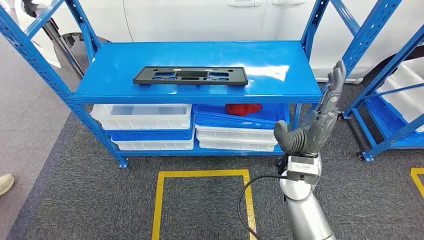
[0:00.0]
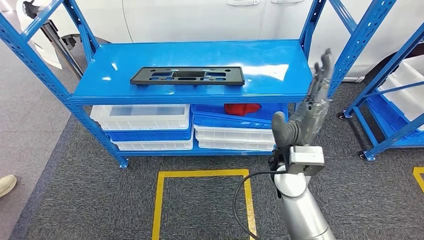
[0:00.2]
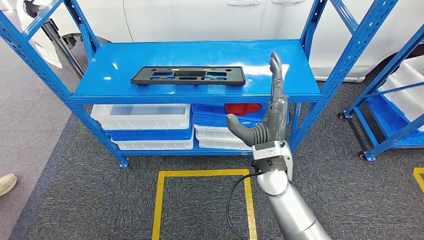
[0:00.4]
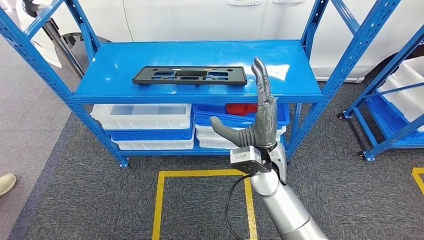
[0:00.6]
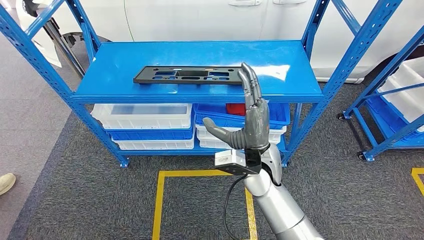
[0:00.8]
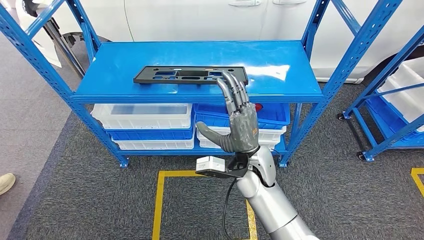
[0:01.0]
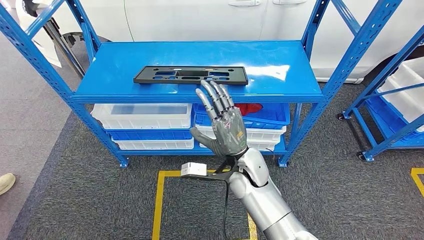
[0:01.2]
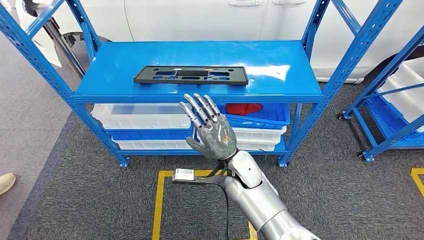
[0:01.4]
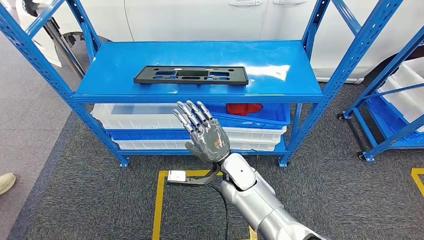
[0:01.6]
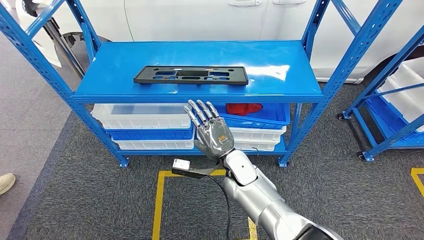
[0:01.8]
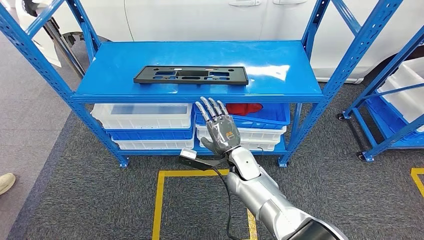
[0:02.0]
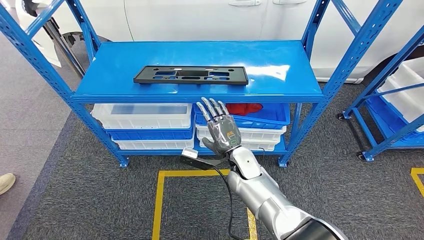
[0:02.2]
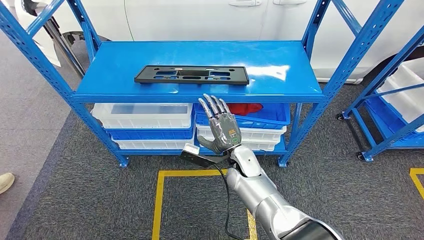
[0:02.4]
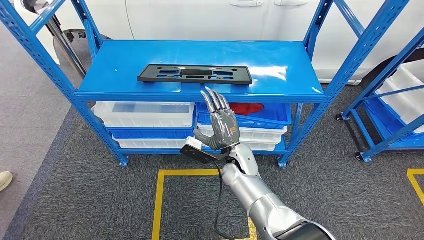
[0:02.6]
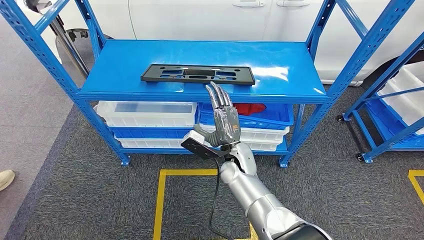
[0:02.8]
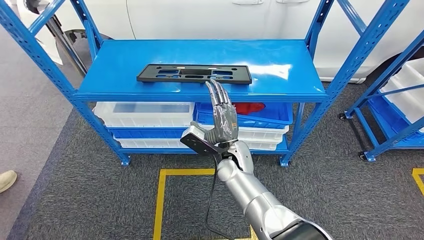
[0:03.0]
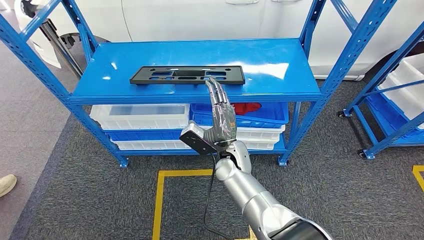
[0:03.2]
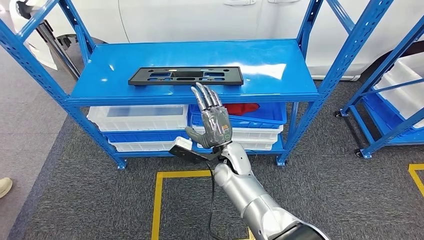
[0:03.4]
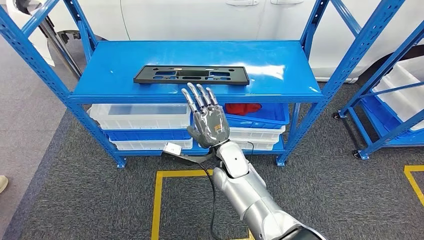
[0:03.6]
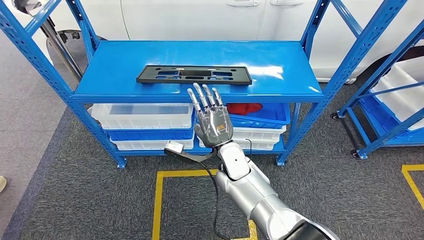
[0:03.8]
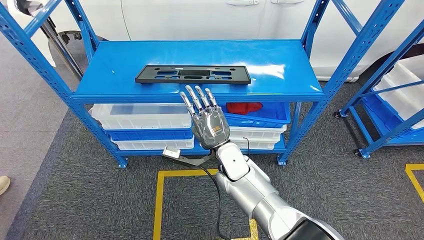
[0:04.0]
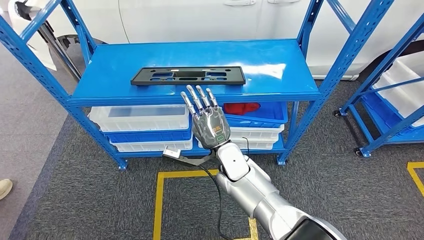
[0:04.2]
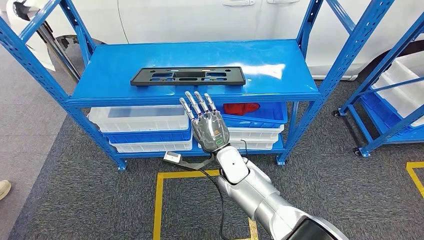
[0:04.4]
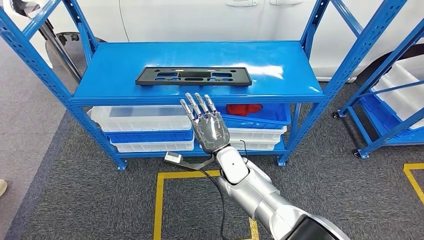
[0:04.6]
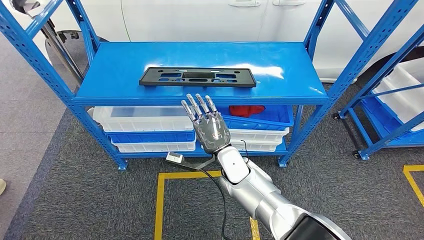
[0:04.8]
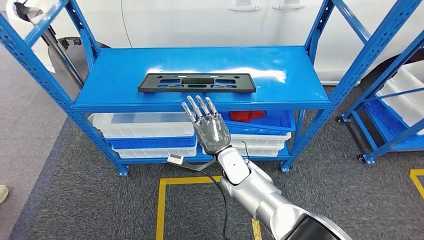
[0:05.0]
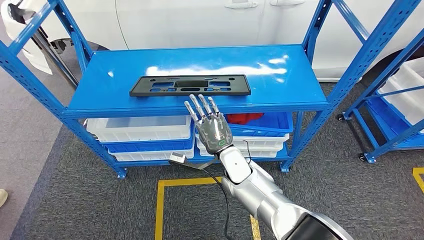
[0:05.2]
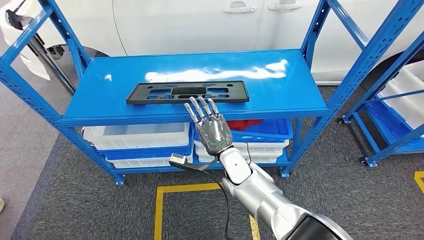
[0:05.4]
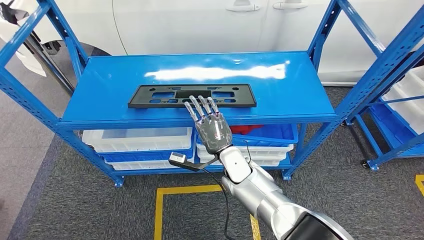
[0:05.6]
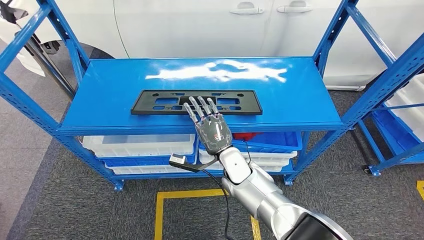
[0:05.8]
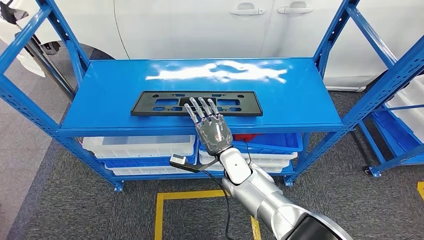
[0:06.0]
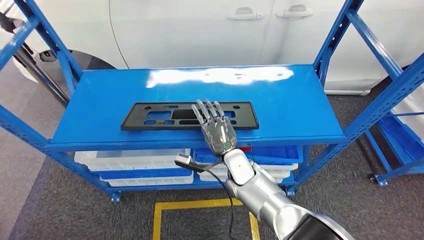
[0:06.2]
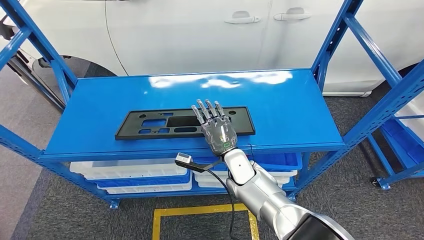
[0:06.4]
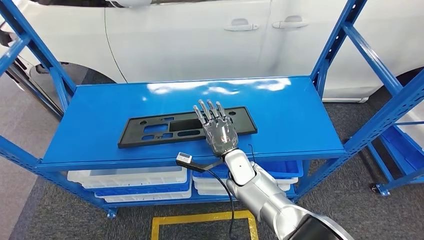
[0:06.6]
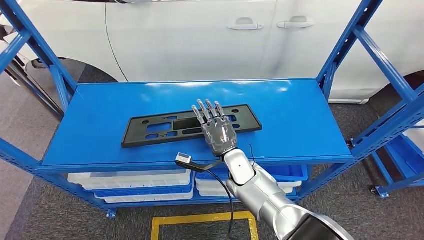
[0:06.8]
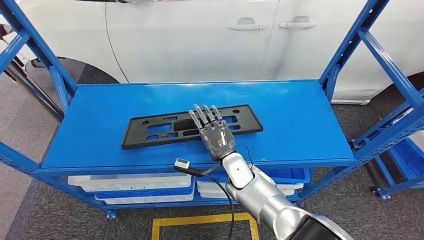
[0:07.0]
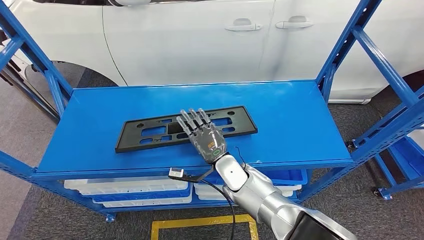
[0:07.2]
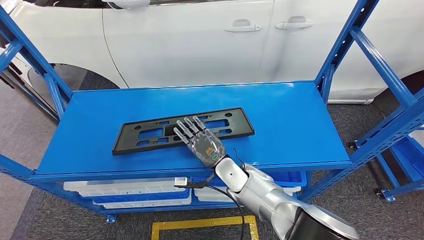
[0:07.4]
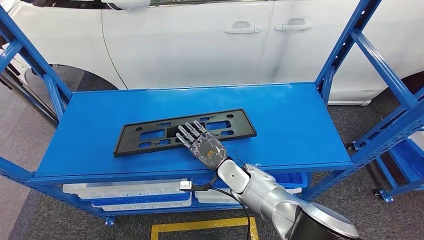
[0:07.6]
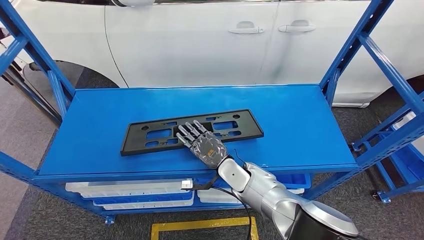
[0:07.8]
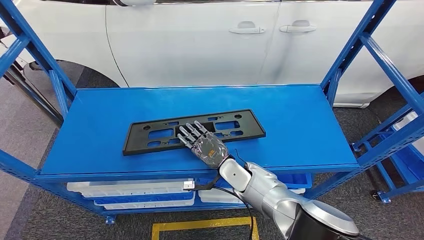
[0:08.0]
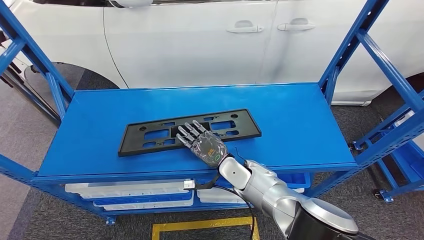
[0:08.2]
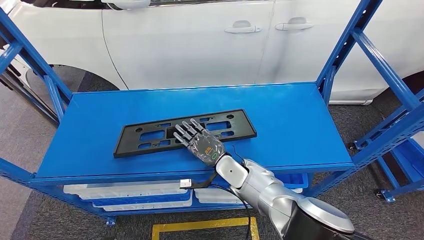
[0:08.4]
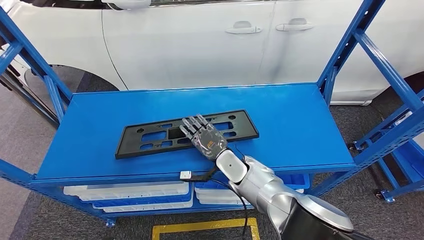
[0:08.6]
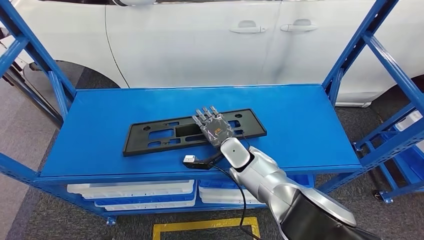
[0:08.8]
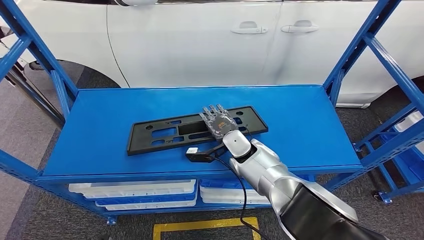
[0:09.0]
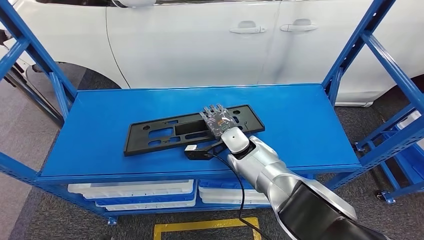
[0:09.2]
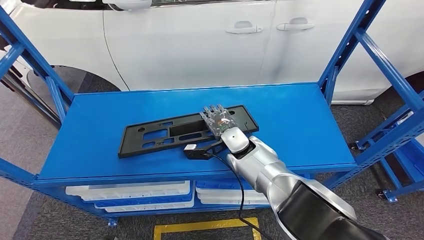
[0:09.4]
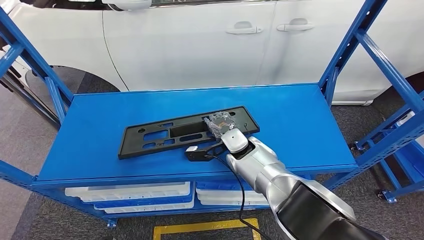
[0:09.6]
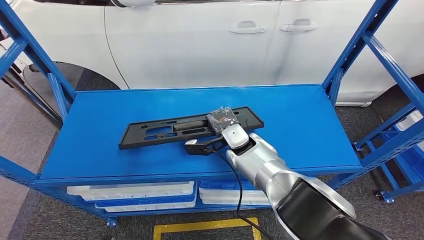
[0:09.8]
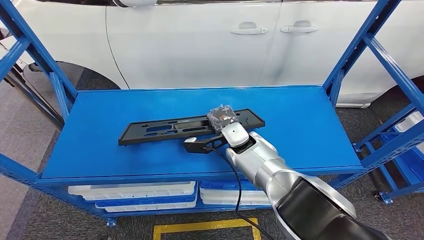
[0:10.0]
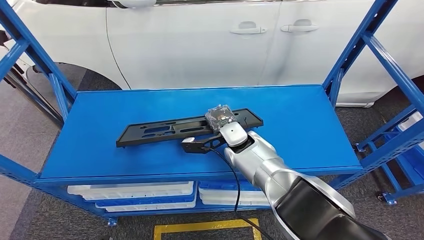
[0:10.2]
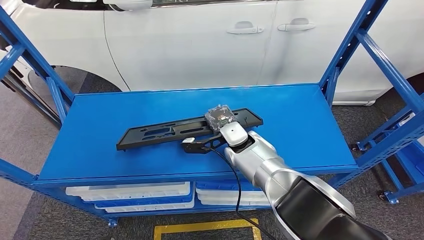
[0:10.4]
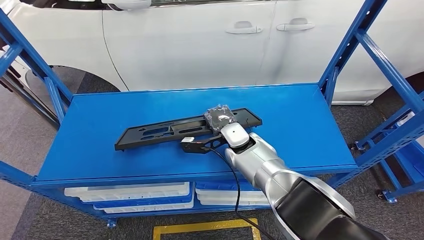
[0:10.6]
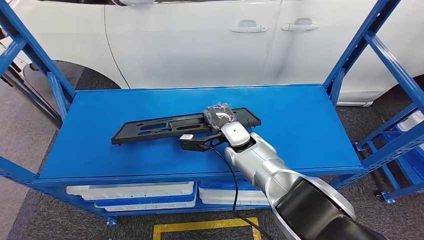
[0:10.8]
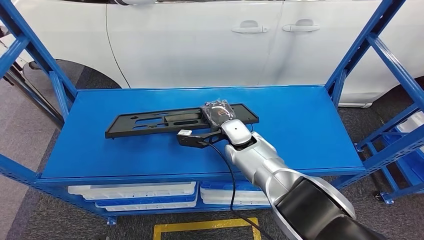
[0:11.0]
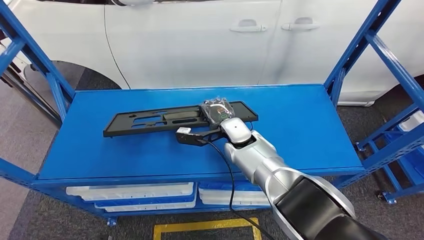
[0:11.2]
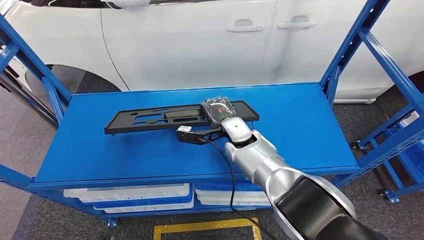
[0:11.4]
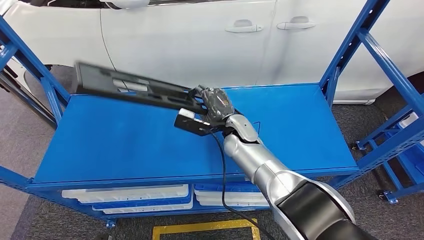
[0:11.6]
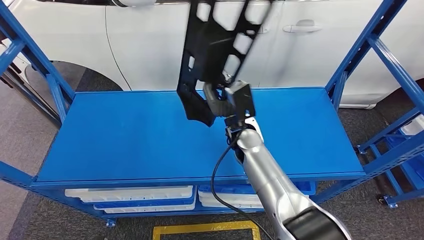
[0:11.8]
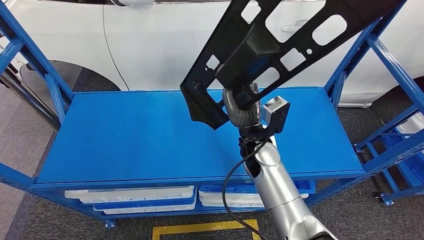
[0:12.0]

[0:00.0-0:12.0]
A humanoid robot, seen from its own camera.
Step, 0:00.0 to 0:11.4: Pick up the large material from the shelf.

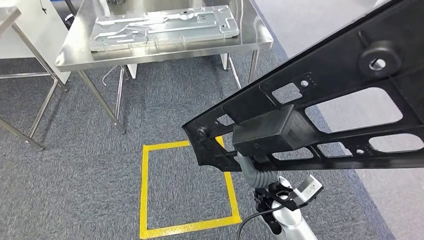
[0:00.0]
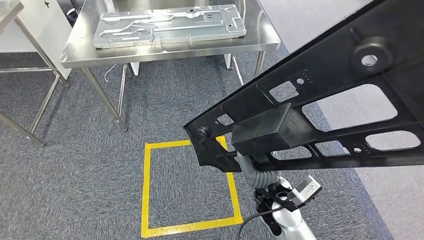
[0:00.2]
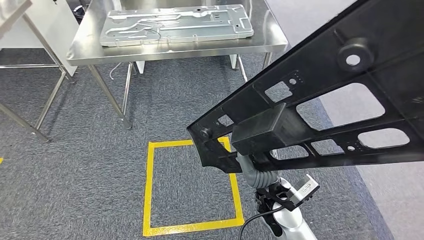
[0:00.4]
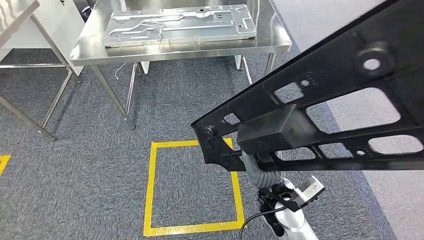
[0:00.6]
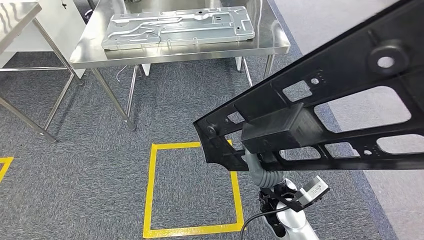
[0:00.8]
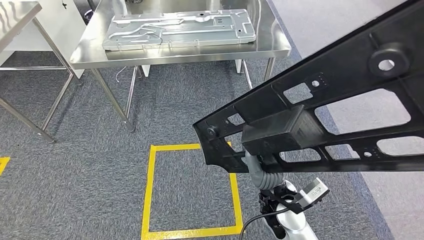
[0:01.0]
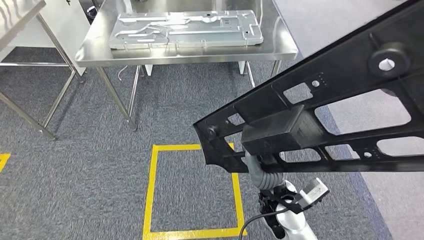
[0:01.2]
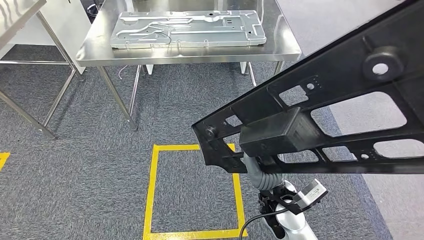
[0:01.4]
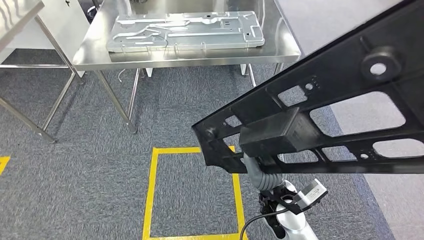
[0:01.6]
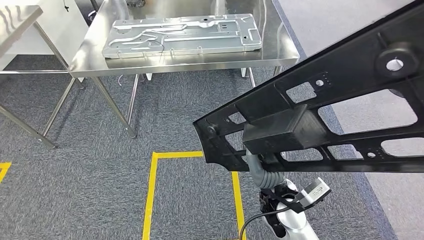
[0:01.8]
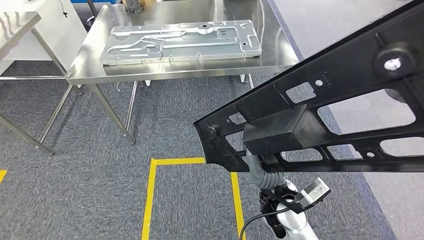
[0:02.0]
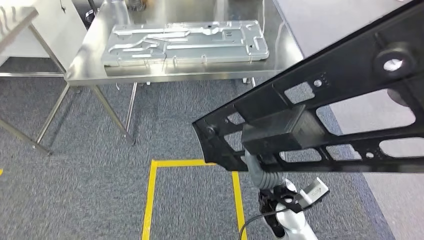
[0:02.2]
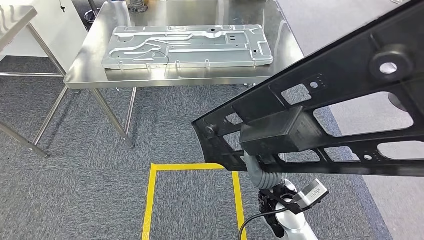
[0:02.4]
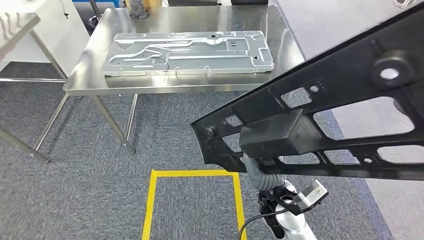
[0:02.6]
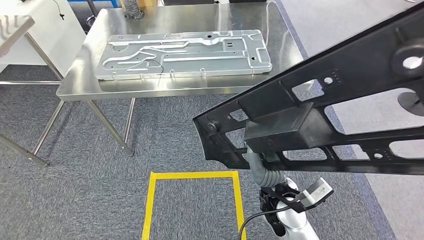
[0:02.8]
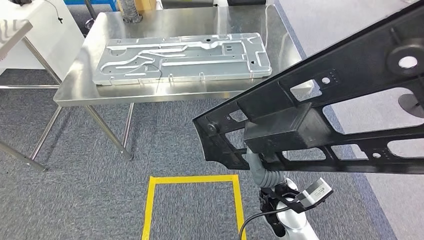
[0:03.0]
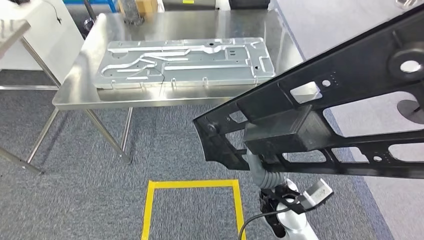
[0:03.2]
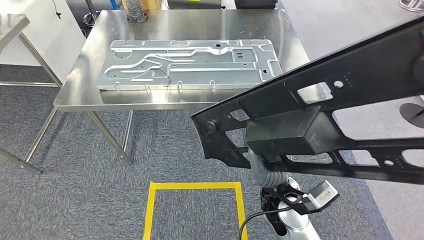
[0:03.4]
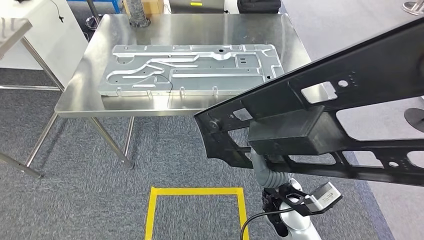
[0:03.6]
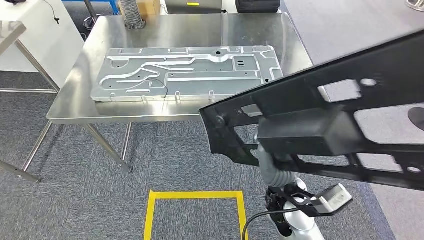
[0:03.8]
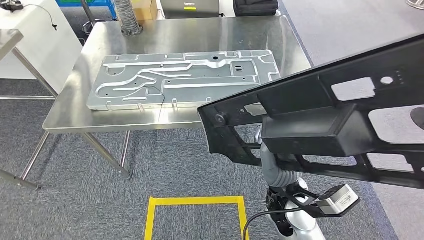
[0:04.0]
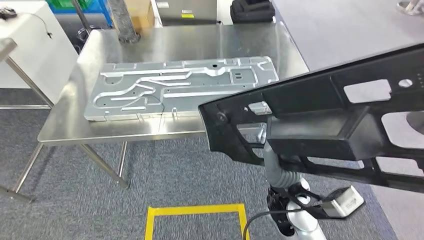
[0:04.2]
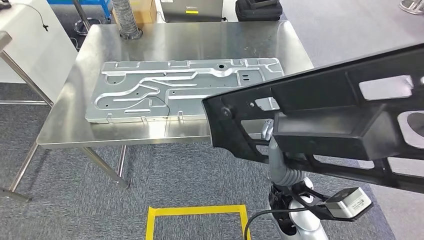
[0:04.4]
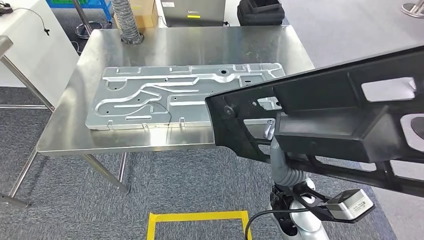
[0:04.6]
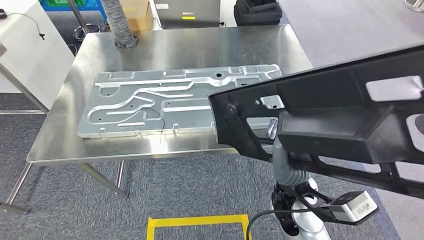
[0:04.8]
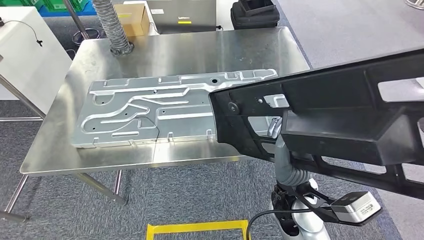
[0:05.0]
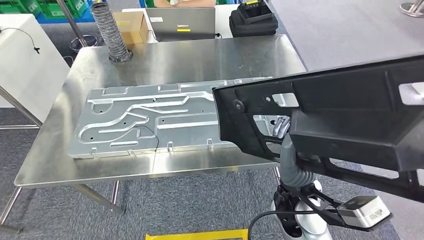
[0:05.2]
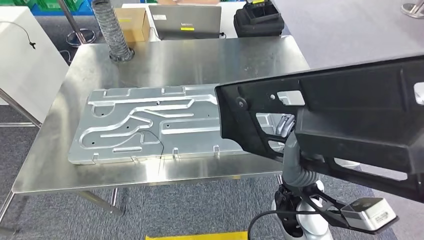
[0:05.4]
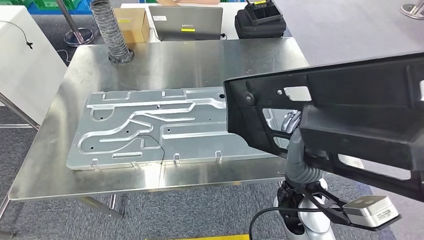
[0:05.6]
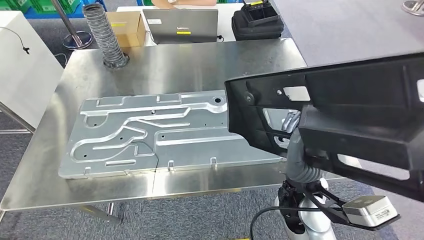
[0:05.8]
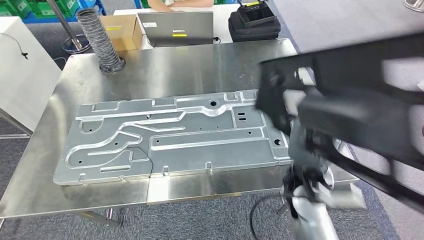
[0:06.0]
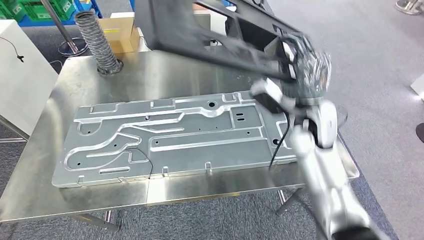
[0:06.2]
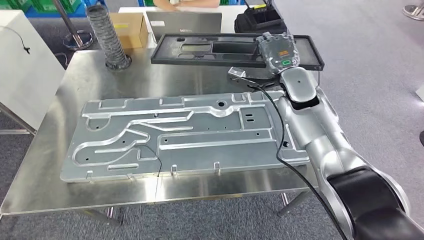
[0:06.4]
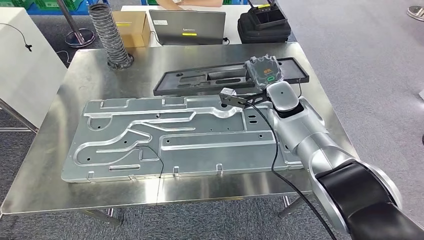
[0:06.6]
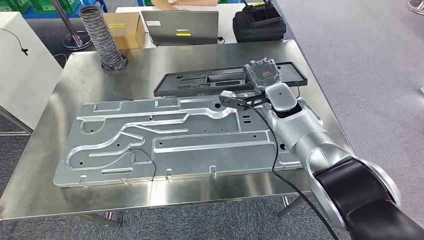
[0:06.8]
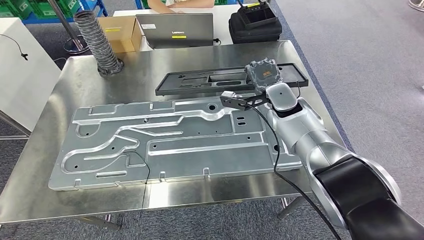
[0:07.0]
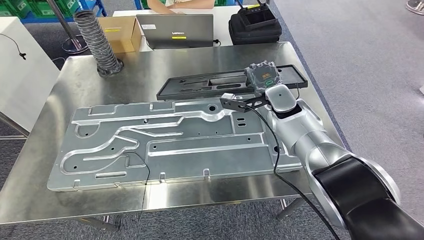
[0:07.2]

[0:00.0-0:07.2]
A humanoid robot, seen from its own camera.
Step, 0:00.0 to 0:06.4: Move the large material to the workbench.
